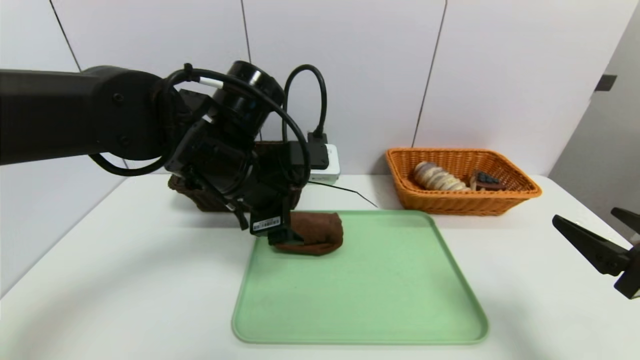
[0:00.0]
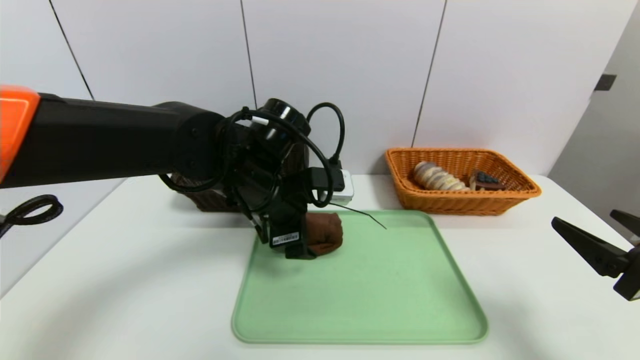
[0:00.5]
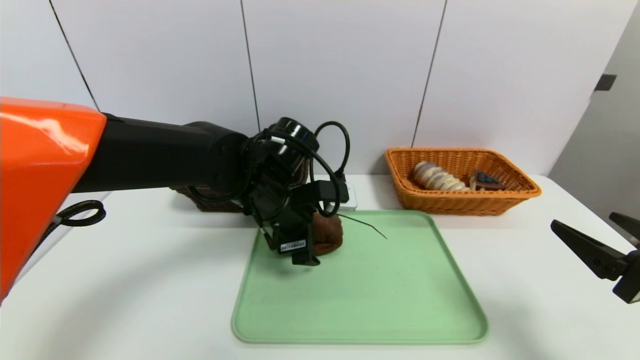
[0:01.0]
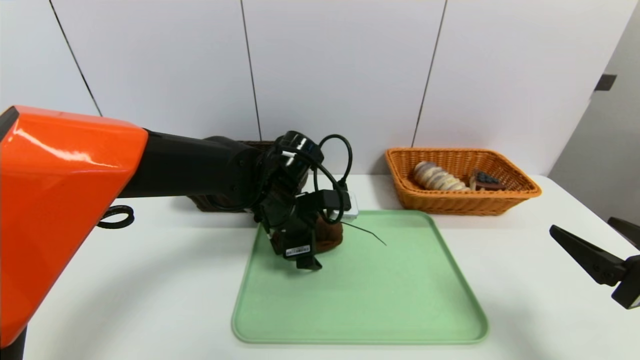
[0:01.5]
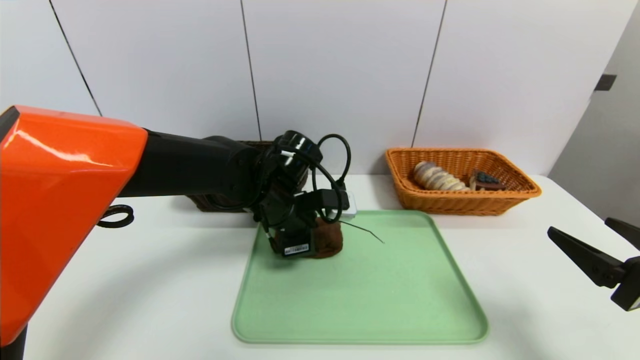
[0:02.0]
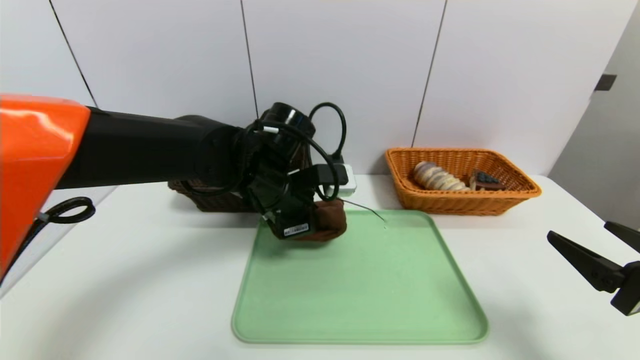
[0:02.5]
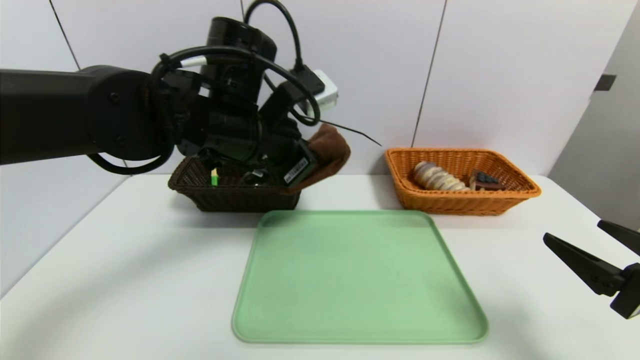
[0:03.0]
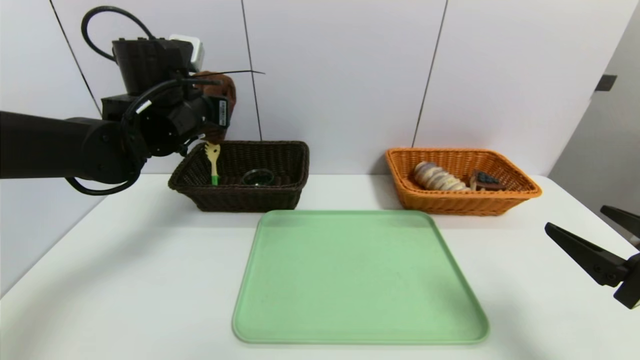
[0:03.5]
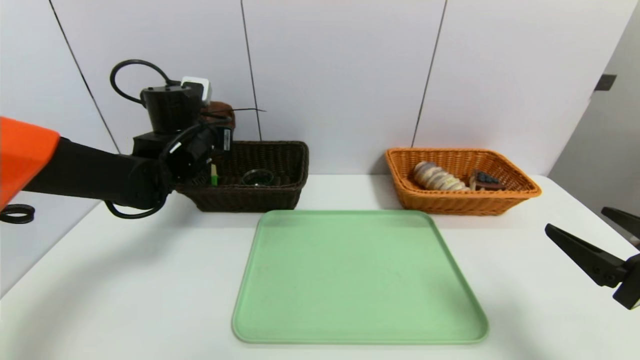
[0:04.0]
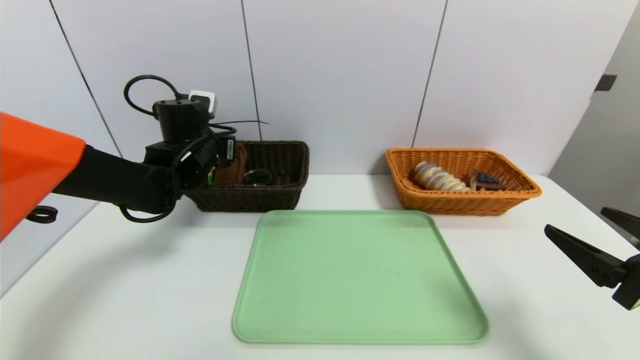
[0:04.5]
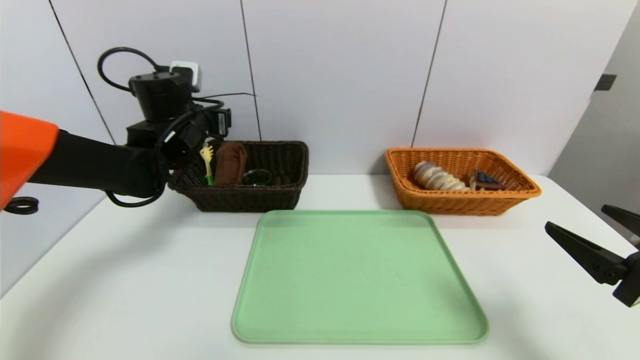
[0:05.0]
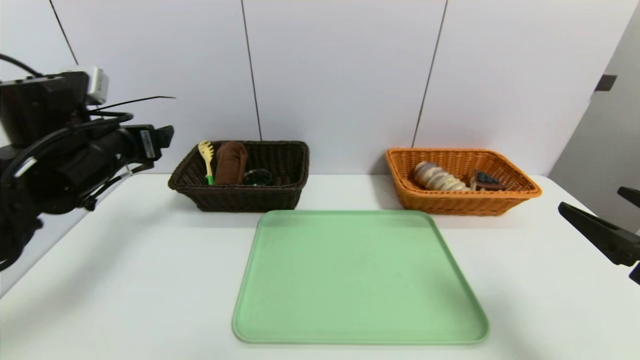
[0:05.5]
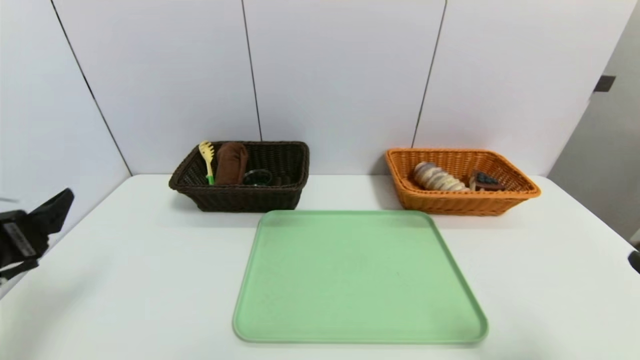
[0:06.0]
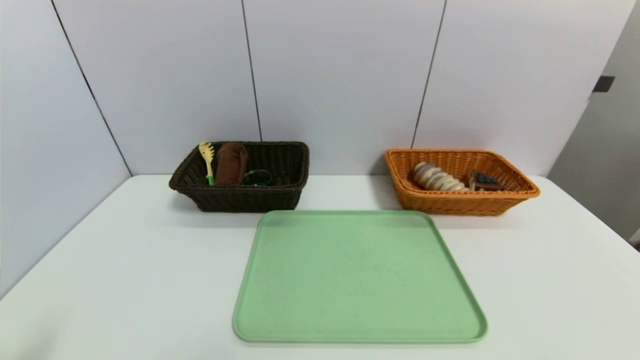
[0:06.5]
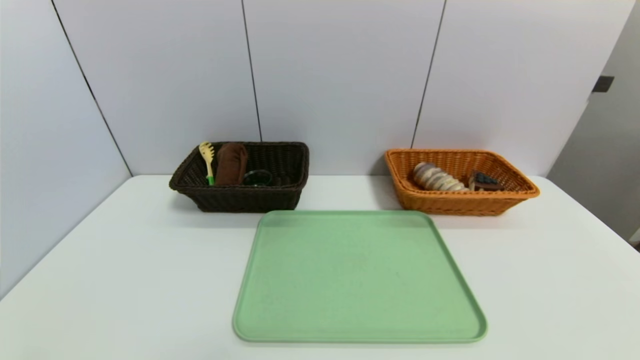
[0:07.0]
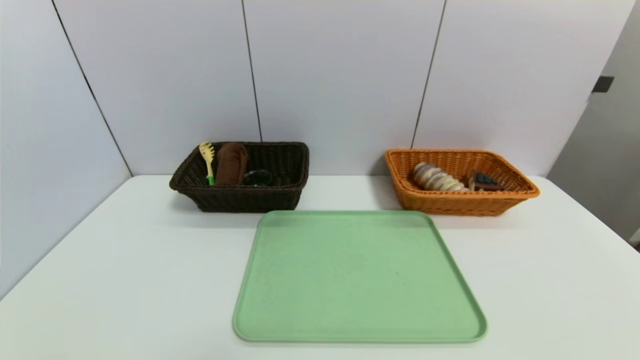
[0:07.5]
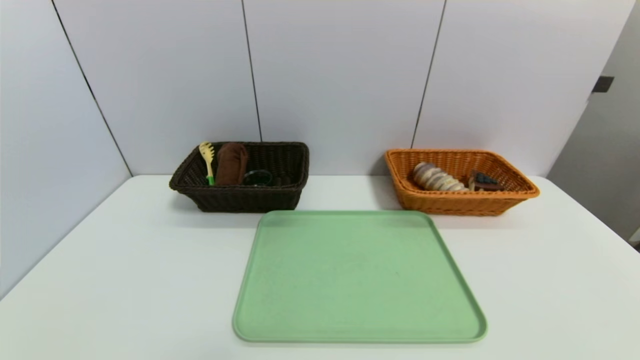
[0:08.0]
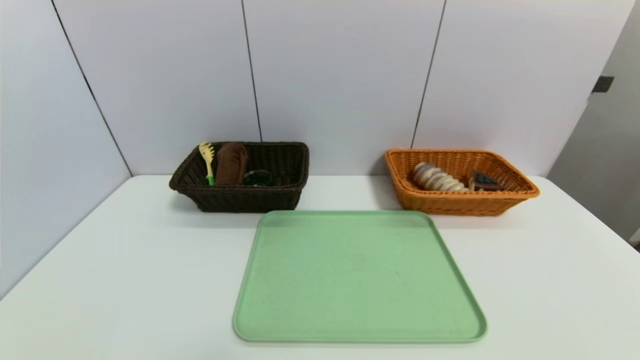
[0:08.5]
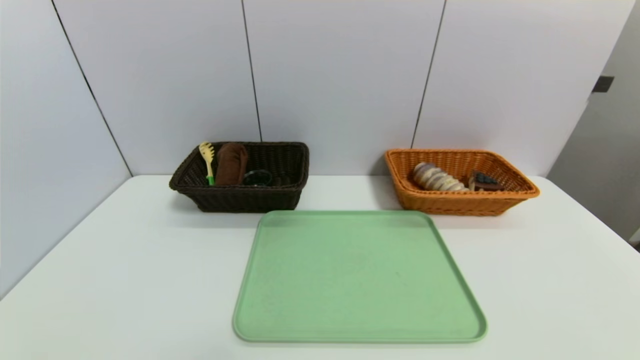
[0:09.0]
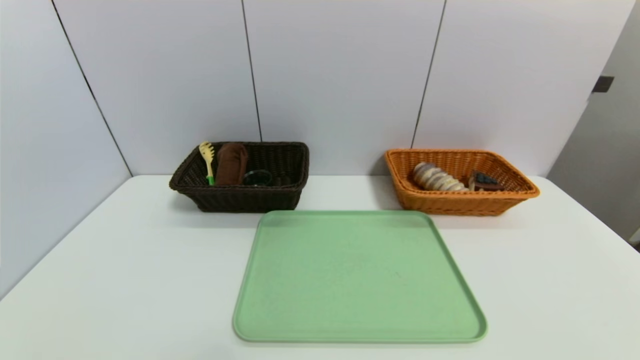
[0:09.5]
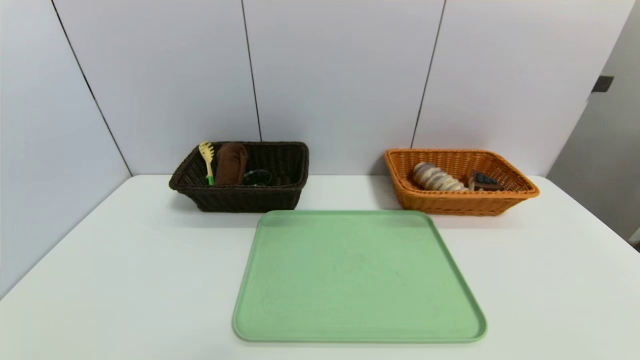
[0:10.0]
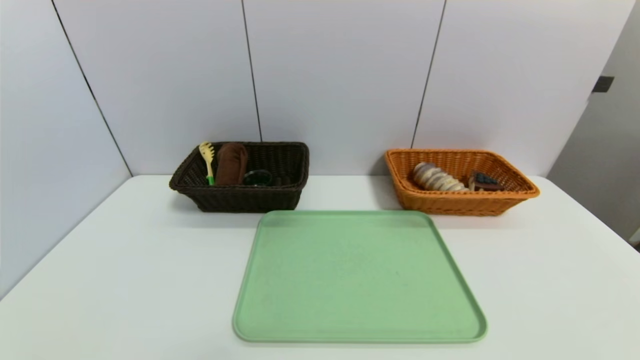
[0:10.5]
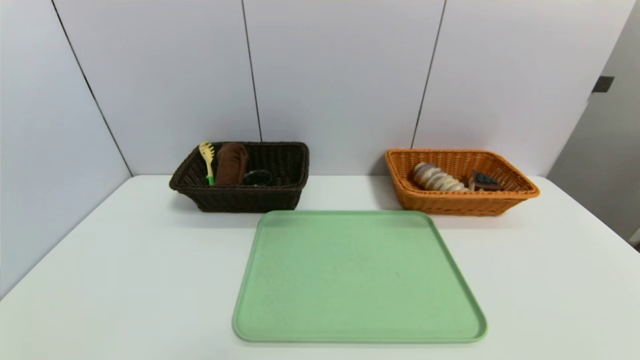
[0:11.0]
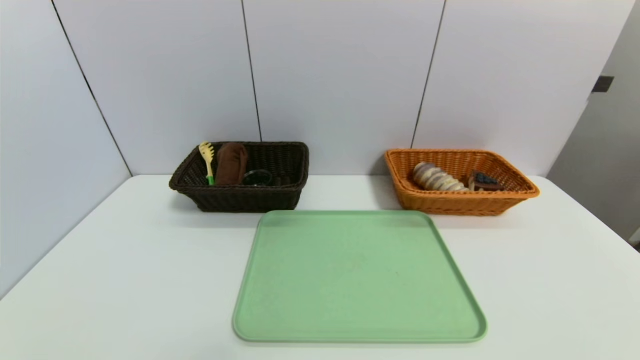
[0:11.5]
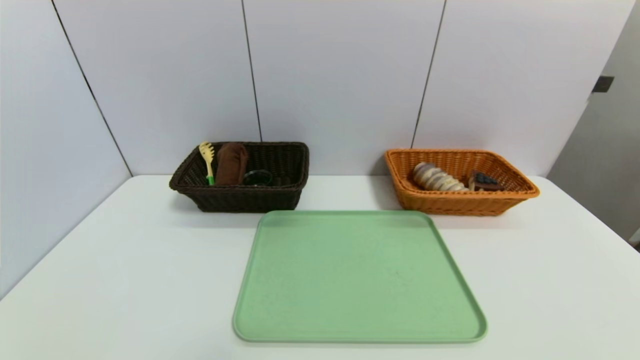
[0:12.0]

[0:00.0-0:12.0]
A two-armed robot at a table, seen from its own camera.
Task of the whole recording: place the food in the right basket with the right gripper, and place the non food items in the left basket with the left gripper.
Step, 0:00.0 to 0:05.0: Grasp the brown towel and put it in the left basket.
0:00.0 to 0:02.0: The left gripper moves downward and forward, about 10 cm, and closes.
0:02.0 to 0:04.0: The left gripper is displaced to the left and forward by approximately 15 cm, and closes its fingers.
0:04.0 to 0:06.0: The right gripper shifts about 5 cm backward, while the left gripper travels backward by some 25 cm, and opens its fingers.
0:06.0 to 0:08.0: The right gripper heads downward and backward, covering some 15 cm. Meanwhile the left gripper heads backward and downward, covering about 20 cm.
0:10.0 to 0:12.0: Neither gripper changes place.

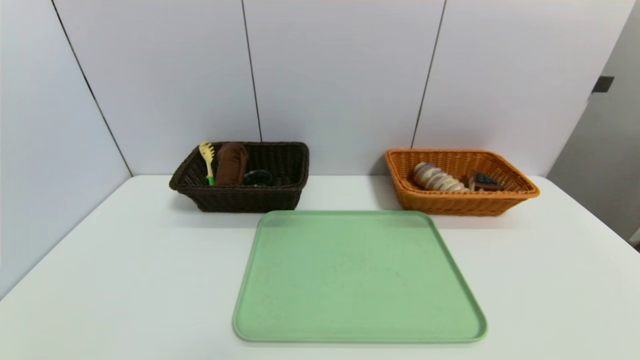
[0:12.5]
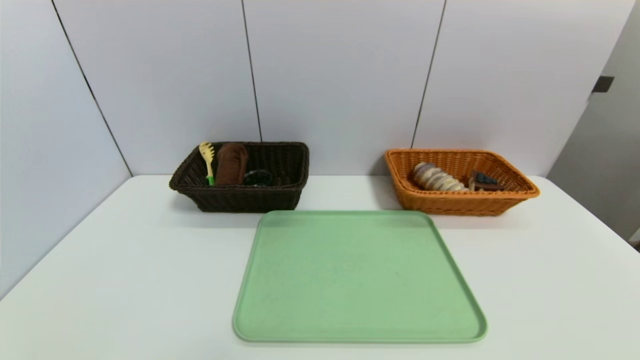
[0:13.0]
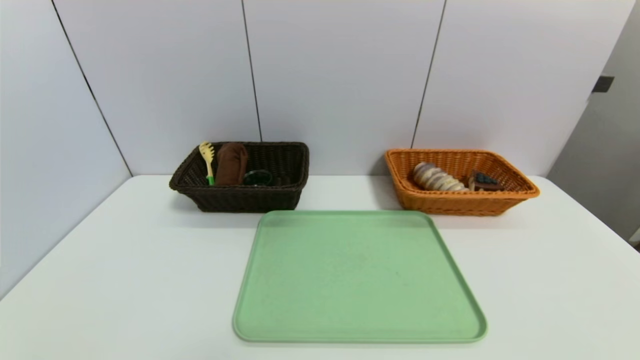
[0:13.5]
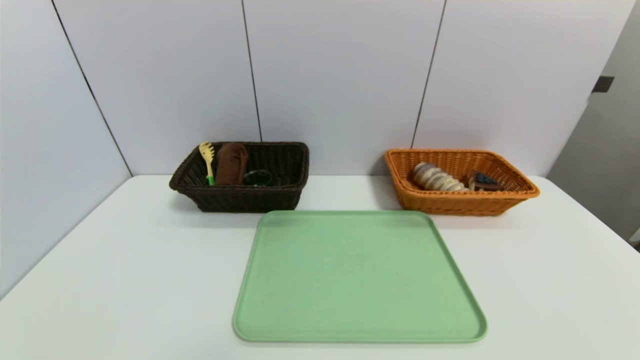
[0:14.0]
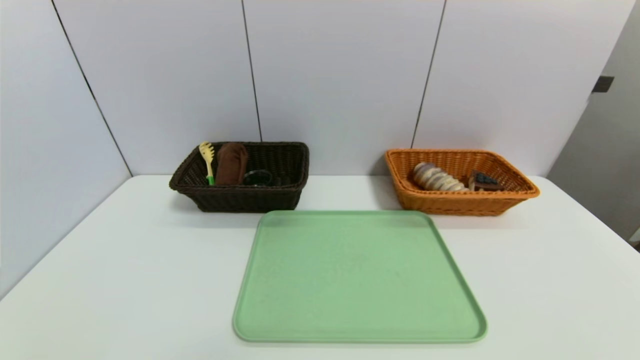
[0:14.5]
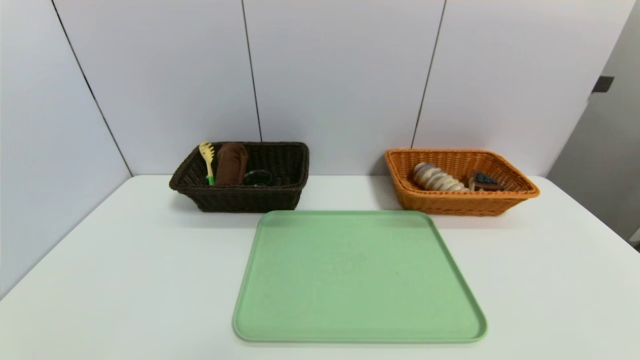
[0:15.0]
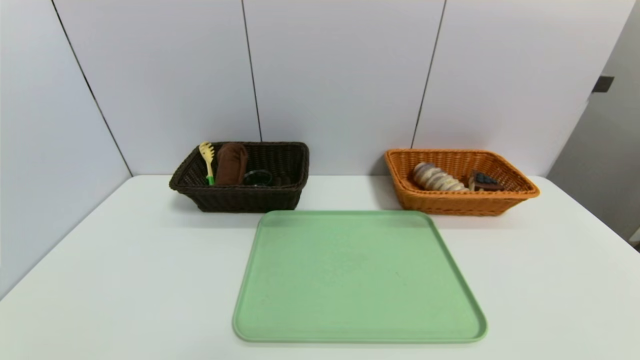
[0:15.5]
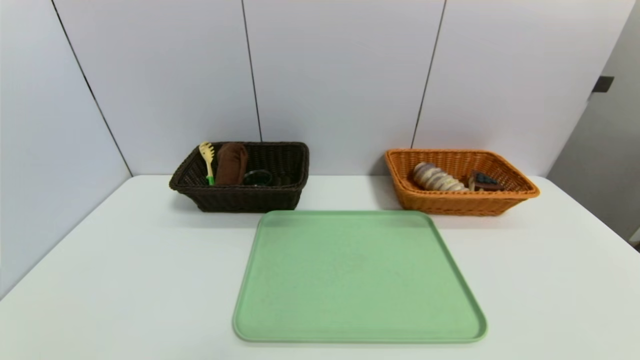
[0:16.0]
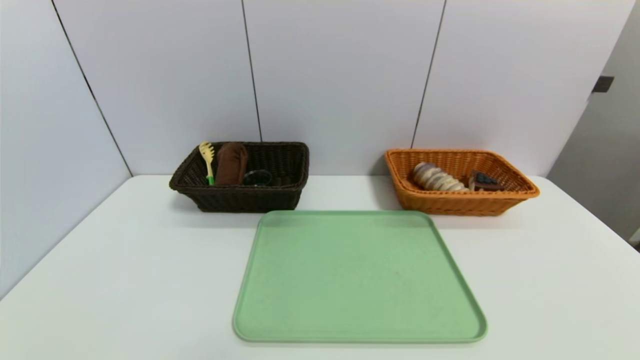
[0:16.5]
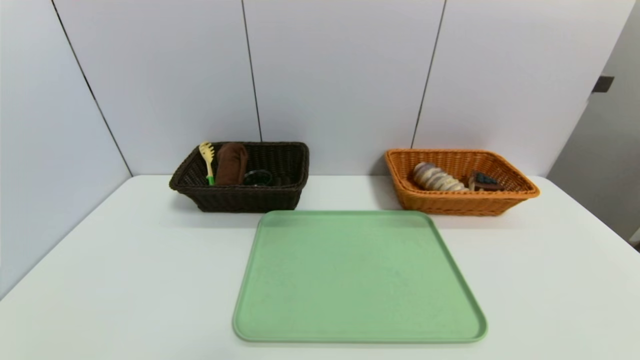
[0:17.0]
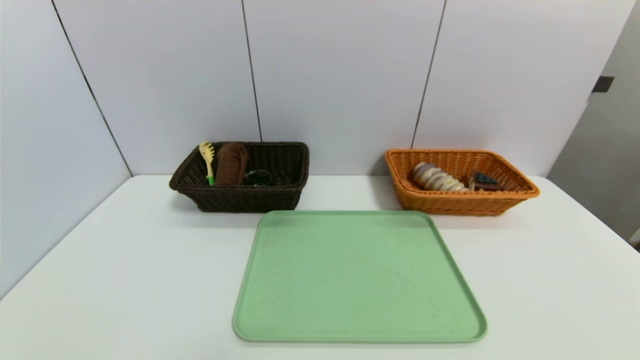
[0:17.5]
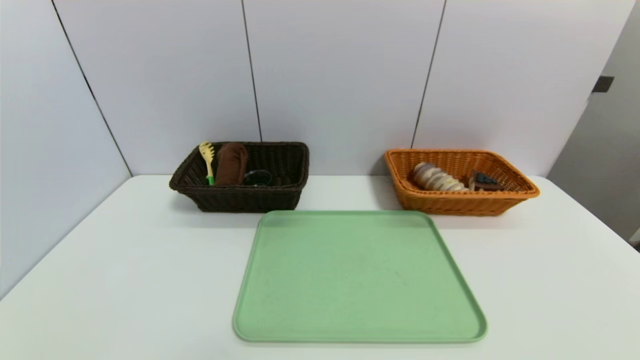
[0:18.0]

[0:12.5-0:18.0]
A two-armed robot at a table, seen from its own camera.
Task of the whole recording: place the food in the right basket with the right gripper, and place the non food items in the left basket with the left gripper.
0:12.5 to 0:18.0: Neither gripper changes place.
